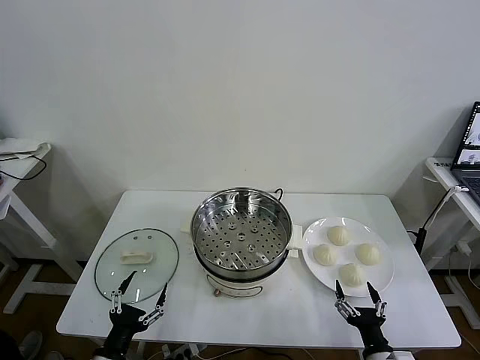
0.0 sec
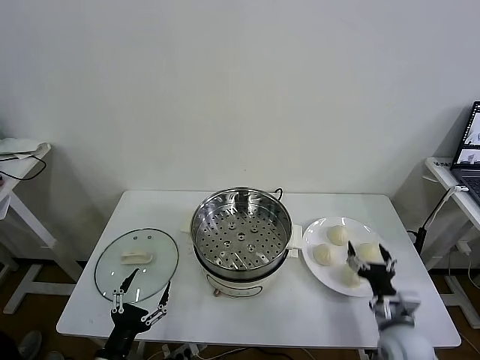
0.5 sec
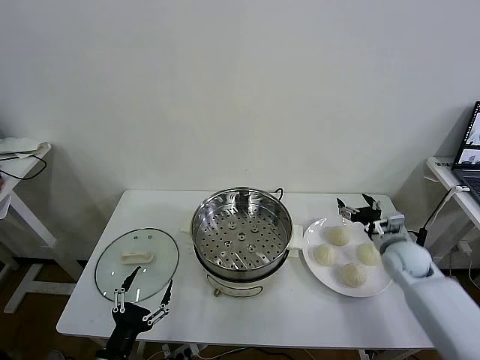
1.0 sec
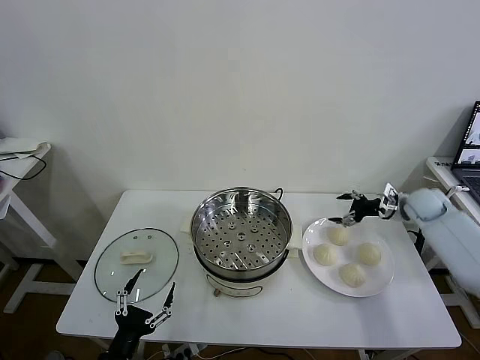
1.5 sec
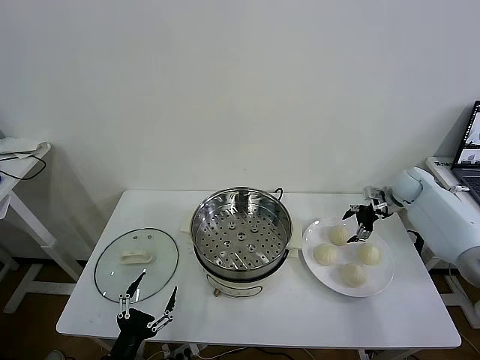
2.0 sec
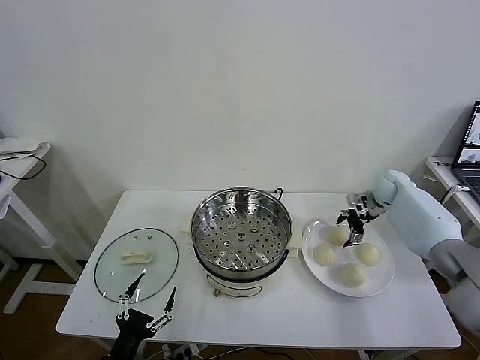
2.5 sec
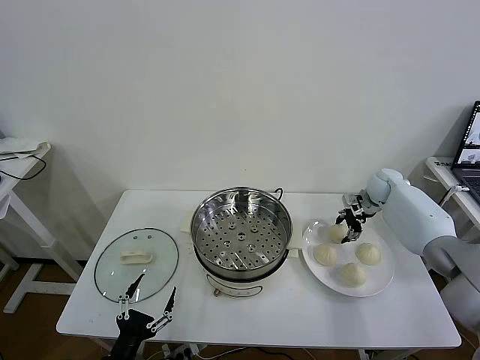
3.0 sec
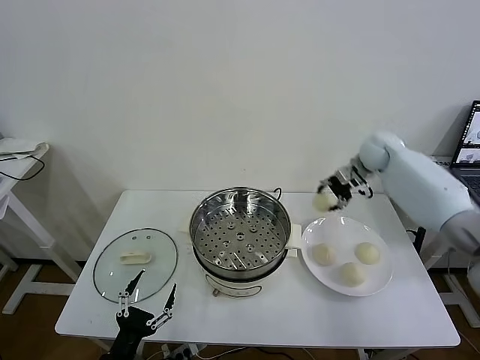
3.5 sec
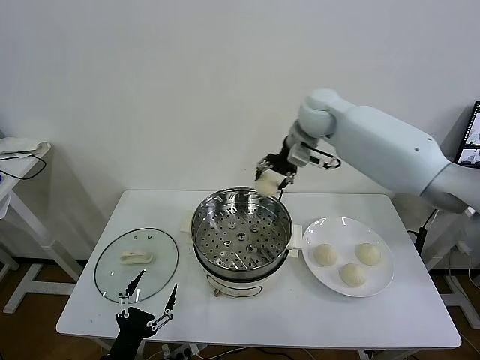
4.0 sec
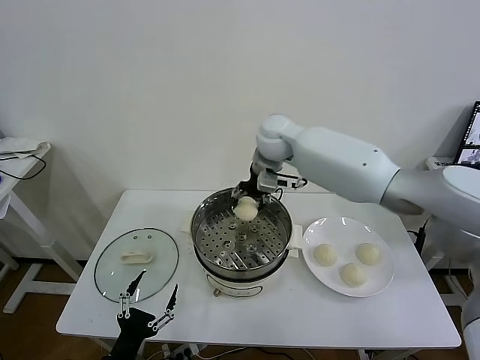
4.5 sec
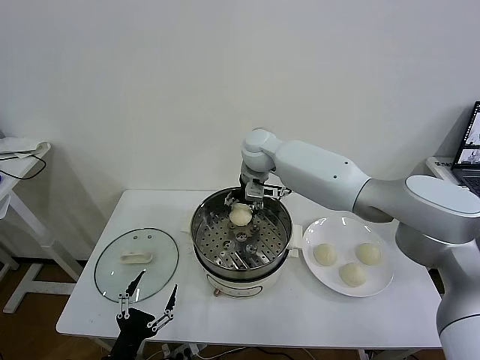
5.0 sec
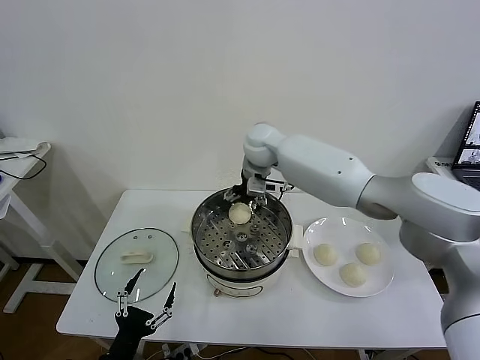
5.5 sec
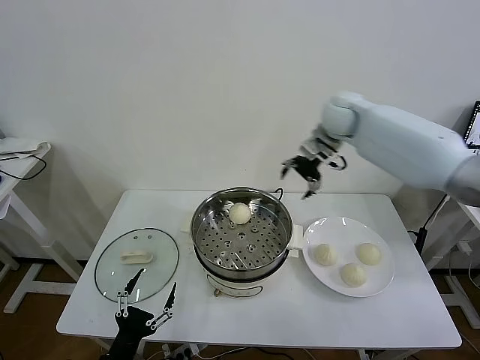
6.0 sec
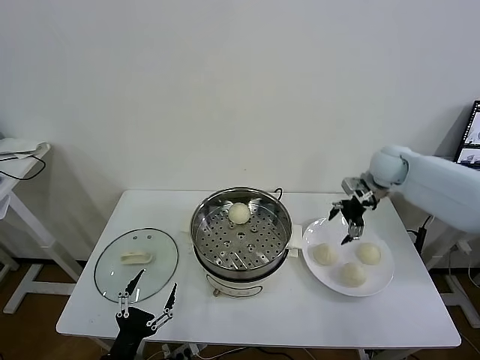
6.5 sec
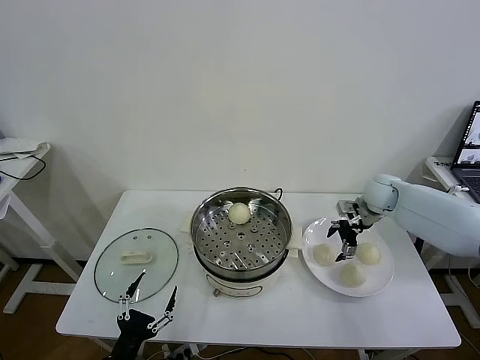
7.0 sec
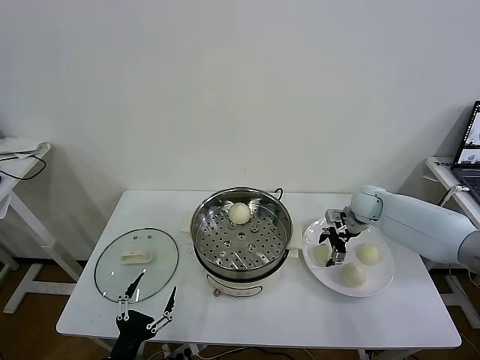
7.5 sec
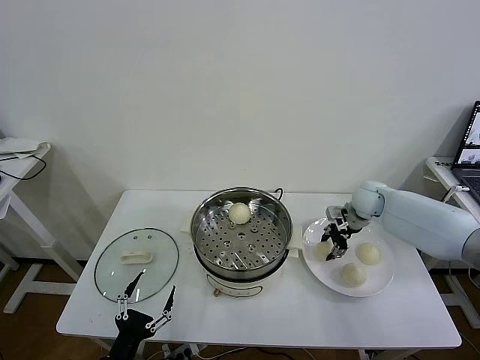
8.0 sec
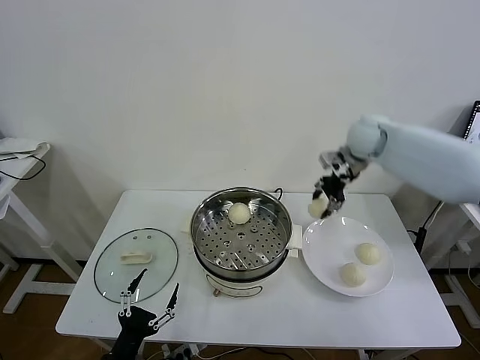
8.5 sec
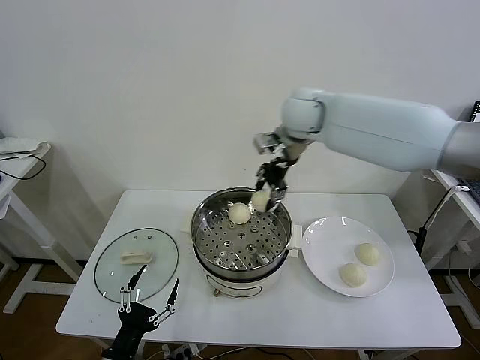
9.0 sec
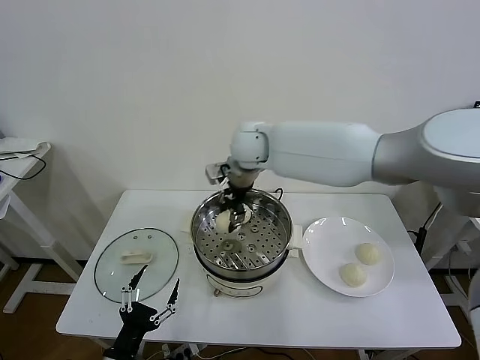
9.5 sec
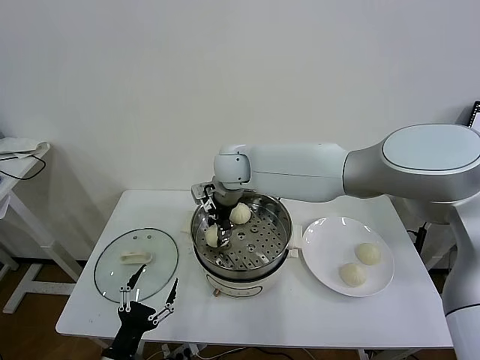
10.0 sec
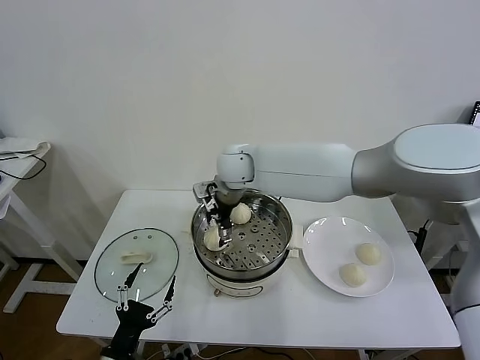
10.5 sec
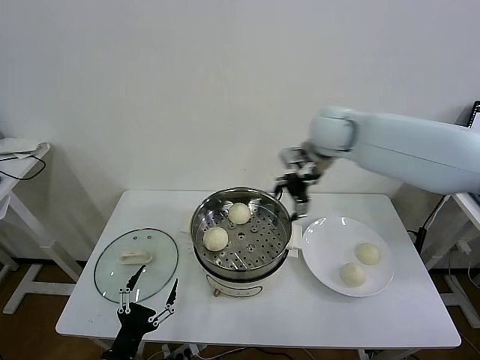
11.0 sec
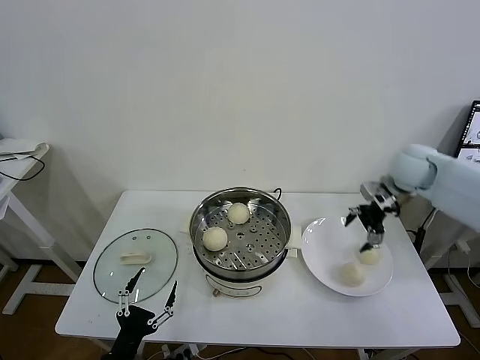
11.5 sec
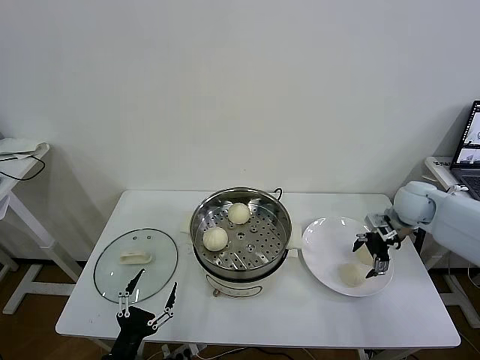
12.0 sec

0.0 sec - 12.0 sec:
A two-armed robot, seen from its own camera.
Task of the whole recording: take steamed baozi put them in steamer then cover it.
Step, 0.0 sec - 3.0 sec: Grasp the baozi in the plate with right gripper.
Step, 3.5 sec - 5.0 sec: Place the baozi on the steamer with right gripper.
Step, 5.5 sec - 7.5 sec: Grasp the baozi in the plate with right gripper.
Step, 8.0 sec - 10.0 sec: Place the baozi on the steamer with right gripper.
2.0 sec - 4.0 sec: The right gripper travels to the left and upward by approximately 35 cm, and closes.
4.0 sec - 6.0 sec: The right gripper shifts roughly 15 cm to the right, and opens its fingers.
6.0 sec - 8.0 sec: The right gripper travels downward by about 20 cm, and closes up.
8.0 sec - 10.0 sec: The right gripper heads to the left, covering roughly 35 cm.
10.0 sec - 12.0 sec: The right gripper is displaced to the right by about 40 cm, and opens its fingers.

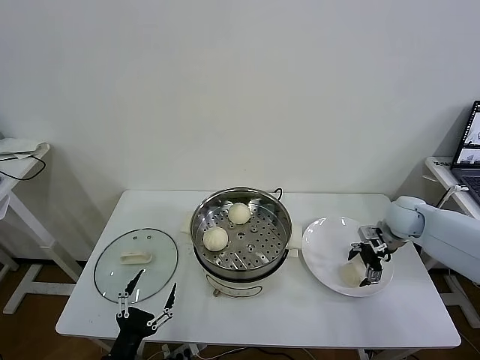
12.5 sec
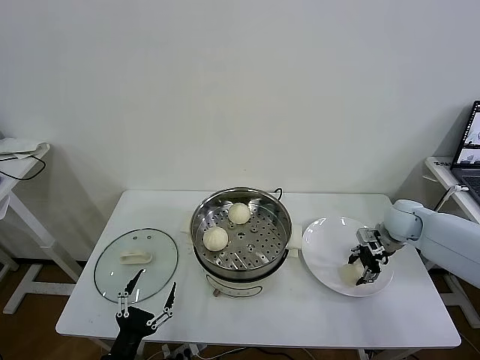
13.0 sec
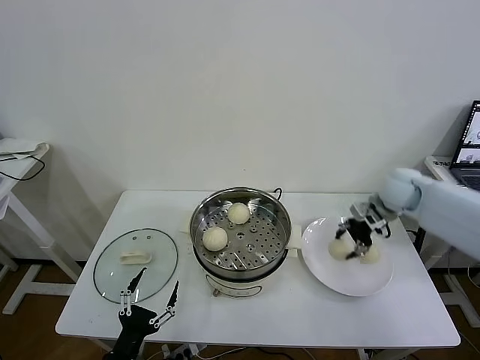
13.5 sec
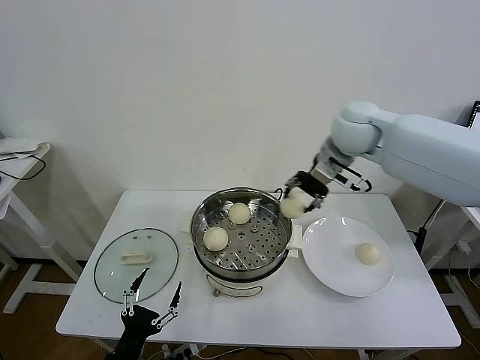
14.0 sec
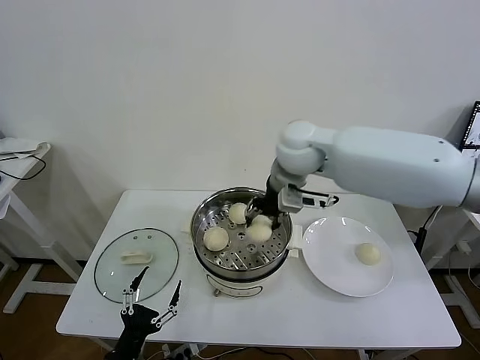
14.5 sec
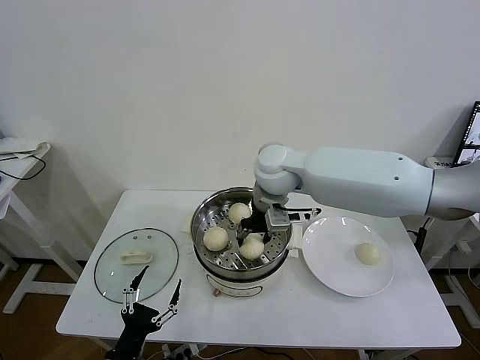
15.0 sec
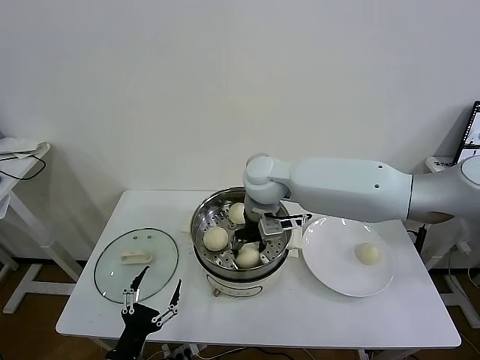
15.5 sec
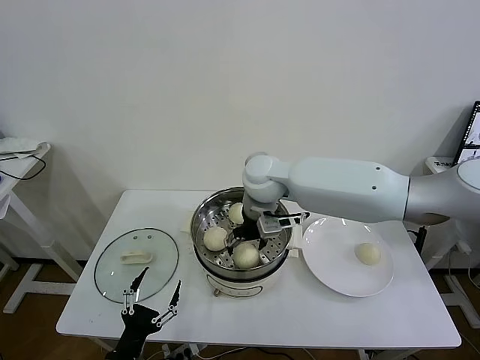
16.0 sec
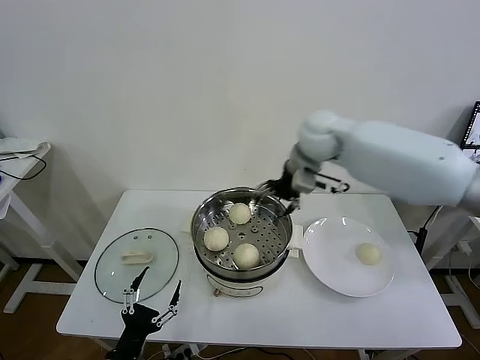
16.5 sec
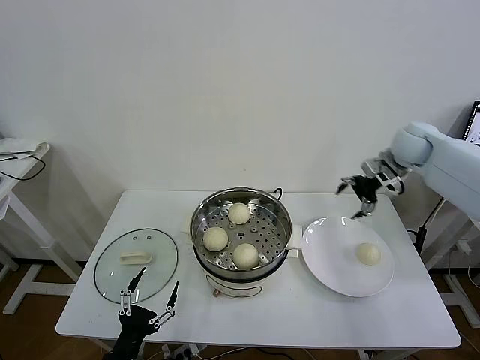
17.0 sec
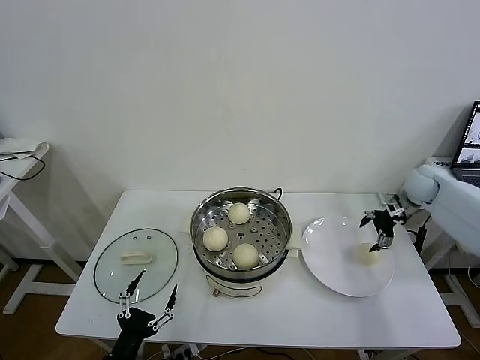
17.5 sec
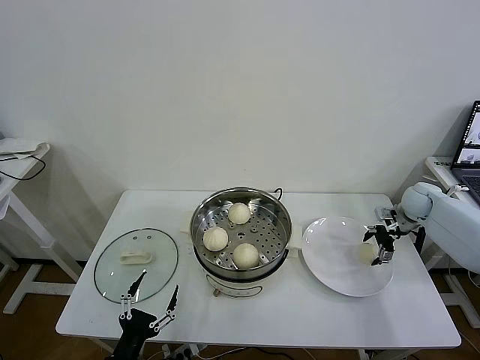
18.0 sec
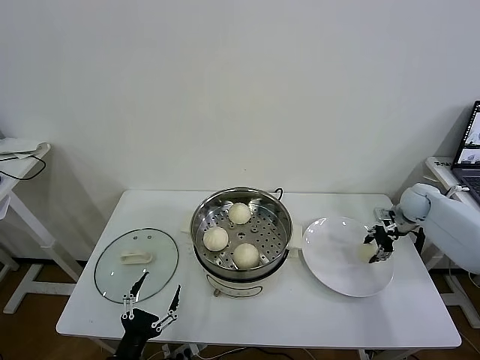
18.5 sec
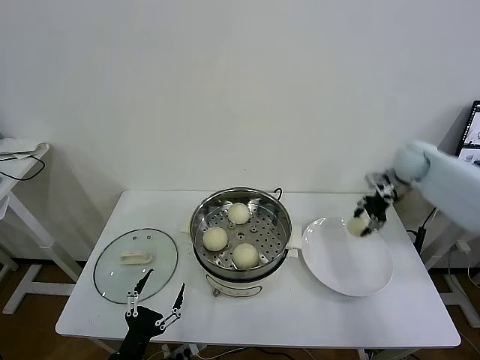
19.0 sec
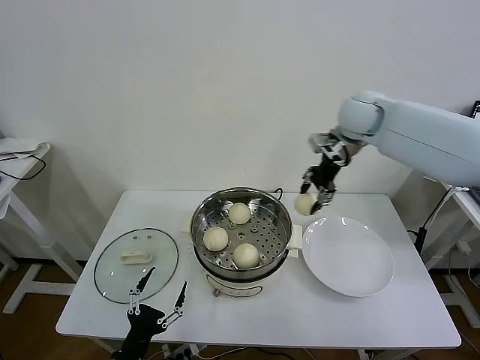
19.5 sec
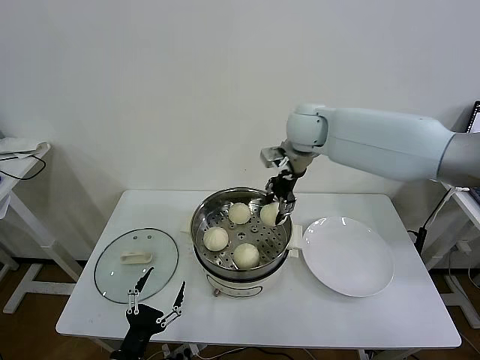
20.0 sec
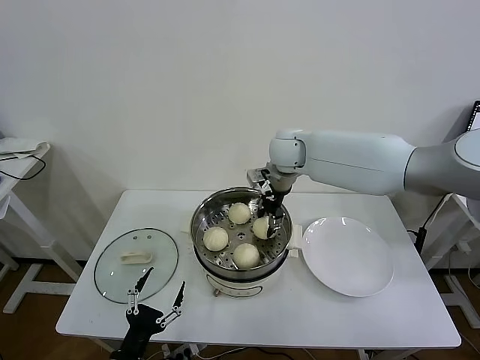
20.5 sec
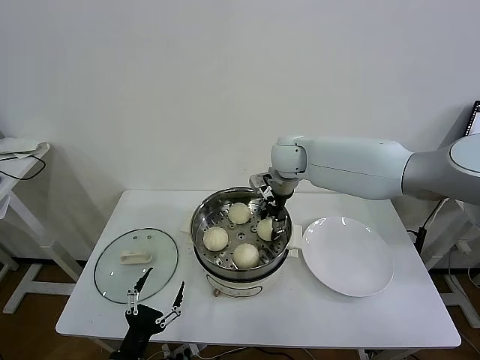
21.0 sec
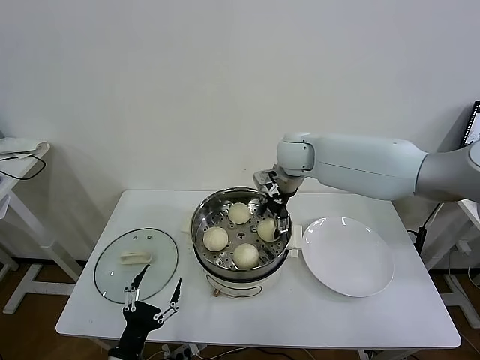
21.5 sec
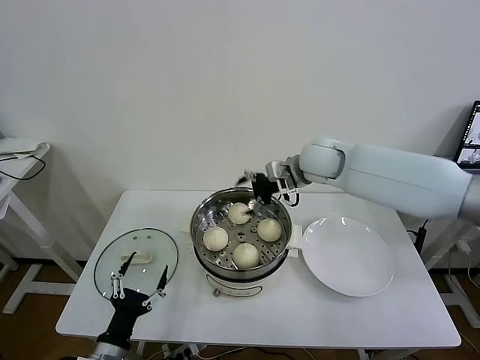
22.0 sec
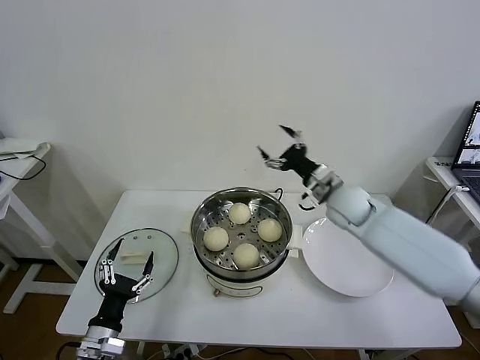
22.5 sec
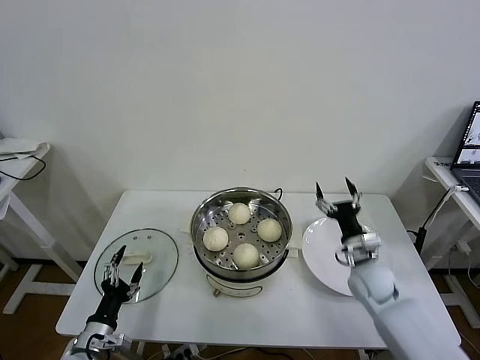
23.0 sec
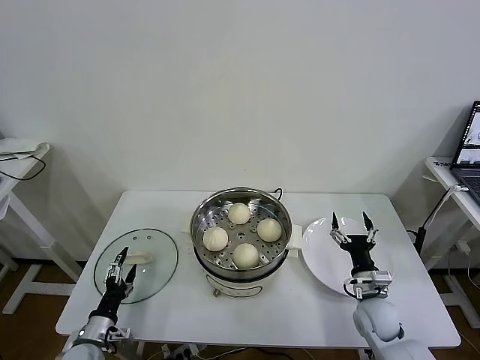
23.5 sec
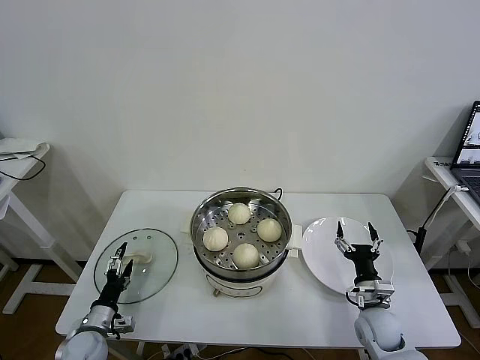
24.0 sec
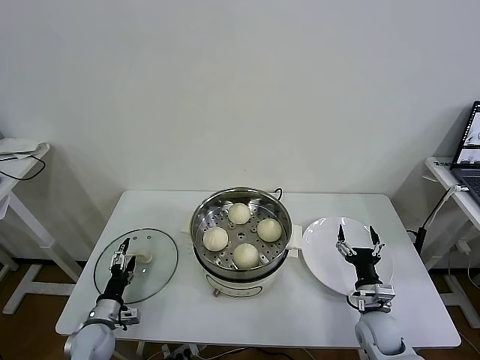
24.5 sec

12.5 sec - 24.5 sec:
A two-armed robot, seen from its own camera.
Task of the whole recording: take steamed baozi put them in steamer then cover it.
Step, 13.5 sec - 16.0 sec: Place the baozi on the steamer with right gripper.
Step, 16.5 sec - 18.5 sec: Grasp the baozi in the plate with right gripper.
Step, 19.0 sec - 21.5 sec: Place the baozi on the steamer with right gripper.
12.5 sec - 14.5 sec: The right gripper moves to the left and upward, about 35 cm, and closes.
14.5 sec - 16.5 sec: The right gripper moves to the right and forward, approximately 10 cm, and opens up.
16.5 sec - 18.5 sec: The right gripper goes some 35 cm to the right and downward, and closes up.
18.5 sec - 20.5 sec: The right gripper moves to the left and upward, some 40 cm.
20.5 sec - 22.5 sec: The right gripper is displaced to the right, downward and backward by roughly 20 cm, and opens its fingers, while the left gripper shifts roughly 5 cm forward.
22.5 sec - 24.5 sec: The right gripper heads downward and backward, covering roughly 30 cm. Meanwhile the left gripper travels downward, forward and to the left by approximately 15 cm.

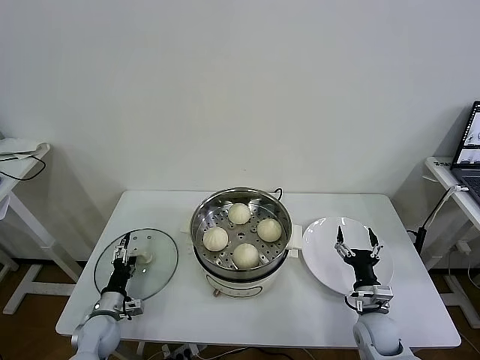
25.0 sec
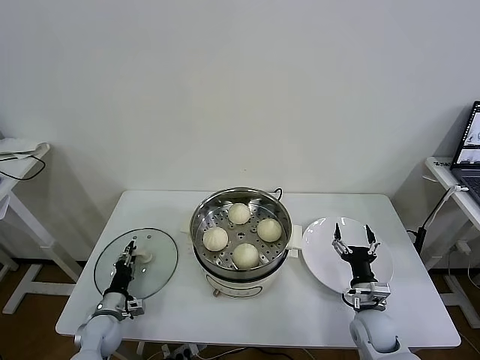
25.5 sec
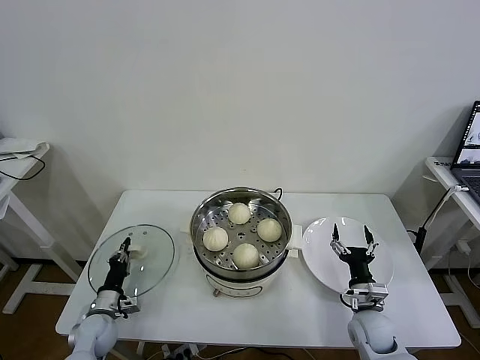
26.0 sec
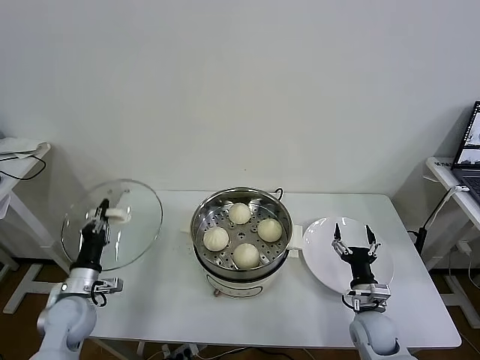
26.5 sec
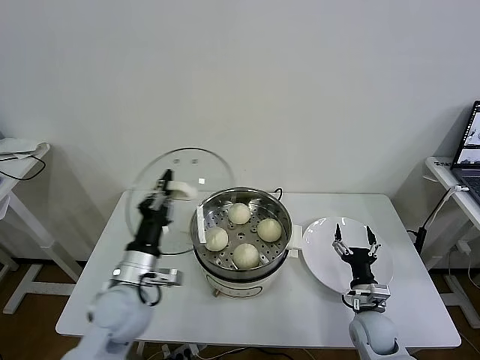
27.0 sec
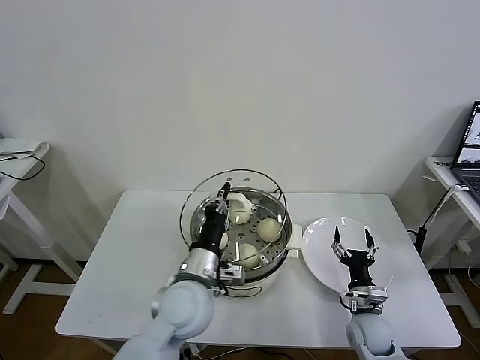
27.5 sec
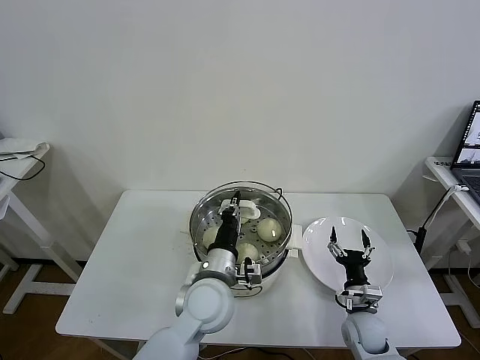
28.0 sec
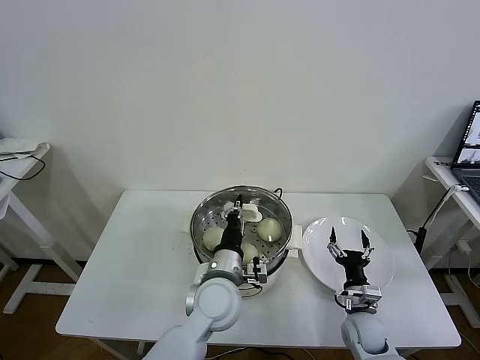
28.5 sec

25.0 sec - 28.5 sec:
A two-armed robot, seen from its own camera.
Task of the whole recording: take steamed baozi put them in steamer then cover it.
25.0 sec - 27.0 sec: The left gripper moves upward and to the right, some 25 cm, and closes up.
27.0 sec - 28.5 sec: The left gripper goes approximately 20 cm to the right.
